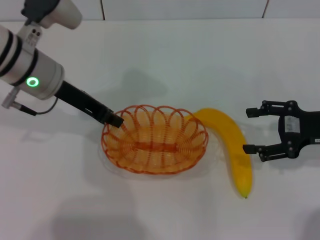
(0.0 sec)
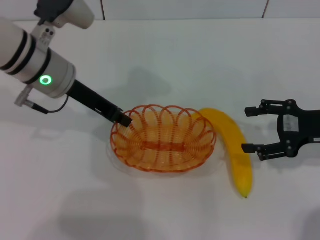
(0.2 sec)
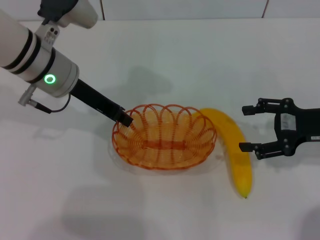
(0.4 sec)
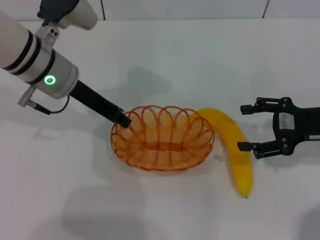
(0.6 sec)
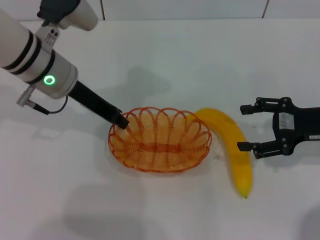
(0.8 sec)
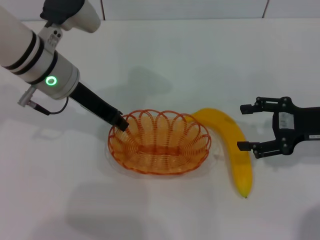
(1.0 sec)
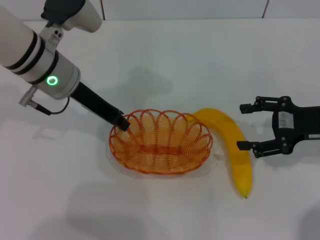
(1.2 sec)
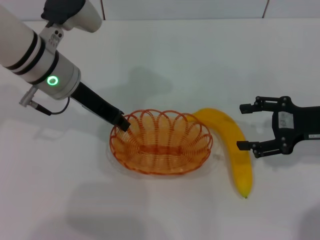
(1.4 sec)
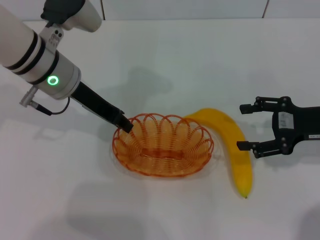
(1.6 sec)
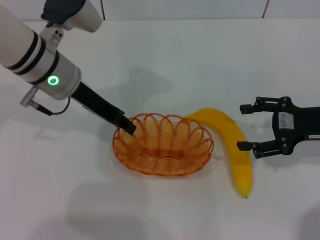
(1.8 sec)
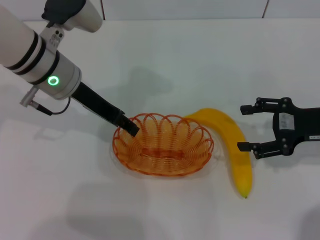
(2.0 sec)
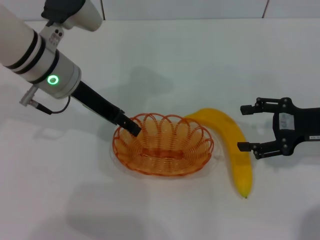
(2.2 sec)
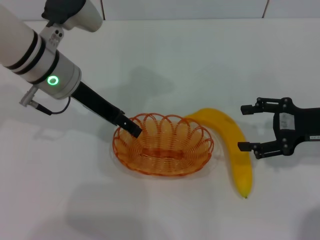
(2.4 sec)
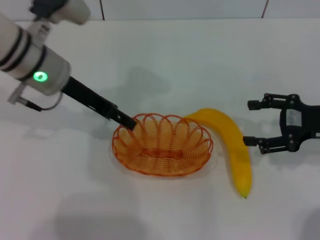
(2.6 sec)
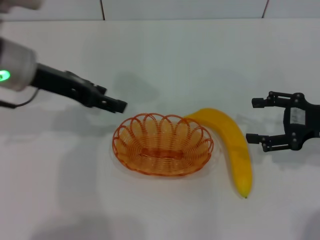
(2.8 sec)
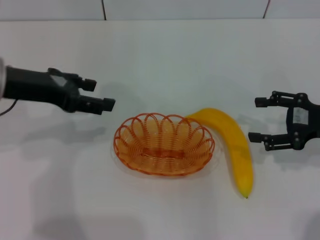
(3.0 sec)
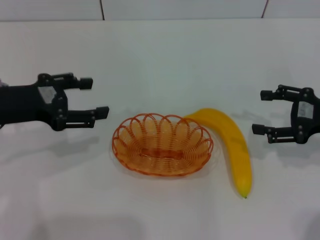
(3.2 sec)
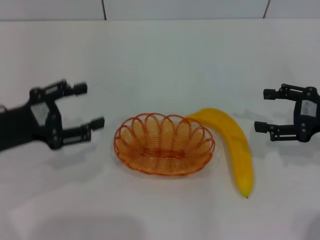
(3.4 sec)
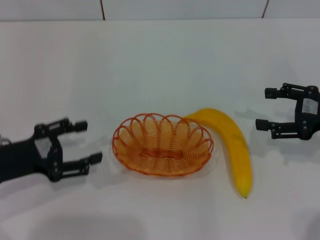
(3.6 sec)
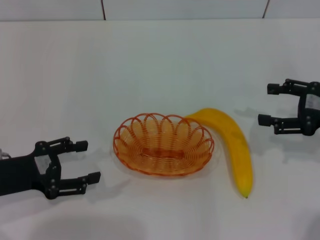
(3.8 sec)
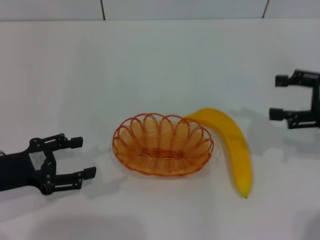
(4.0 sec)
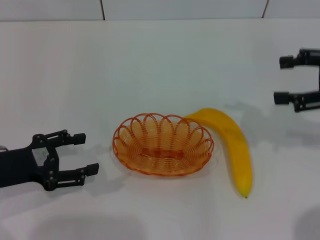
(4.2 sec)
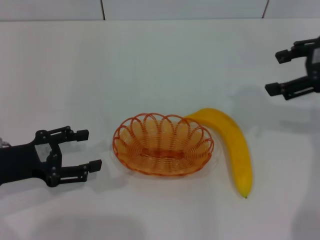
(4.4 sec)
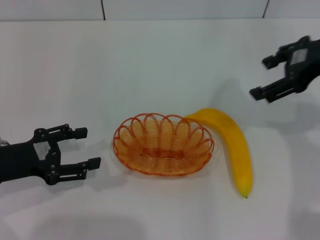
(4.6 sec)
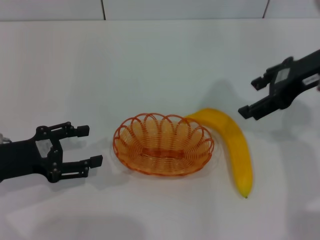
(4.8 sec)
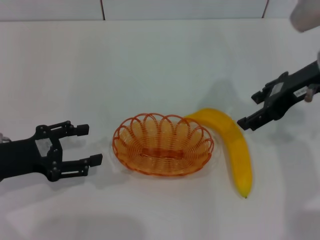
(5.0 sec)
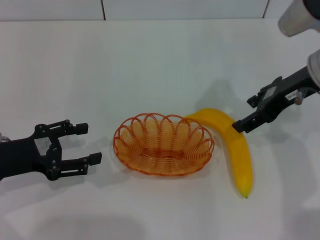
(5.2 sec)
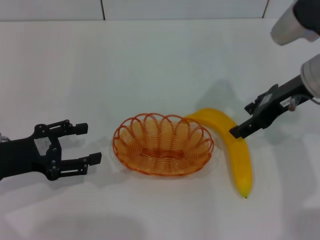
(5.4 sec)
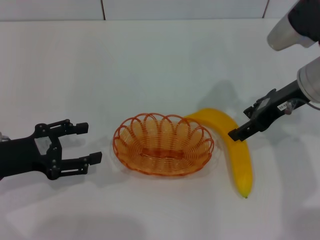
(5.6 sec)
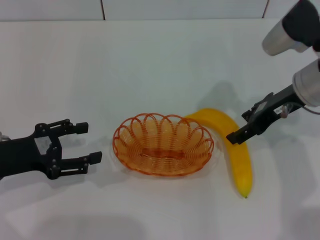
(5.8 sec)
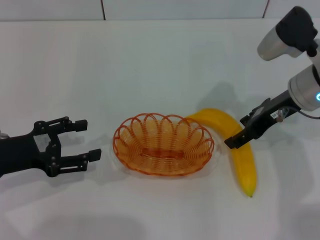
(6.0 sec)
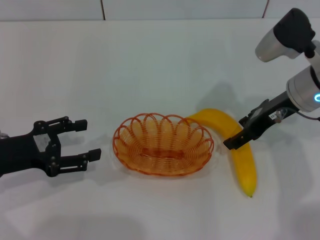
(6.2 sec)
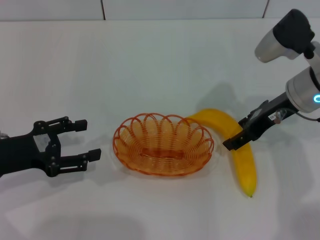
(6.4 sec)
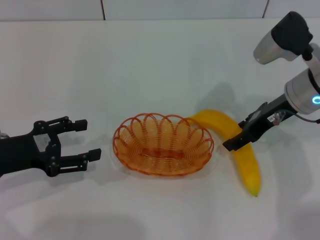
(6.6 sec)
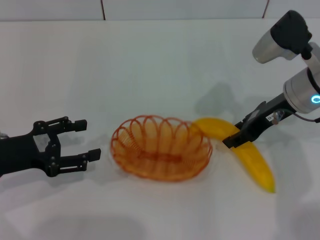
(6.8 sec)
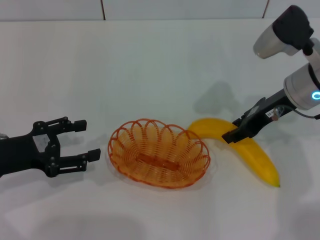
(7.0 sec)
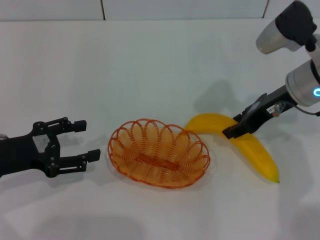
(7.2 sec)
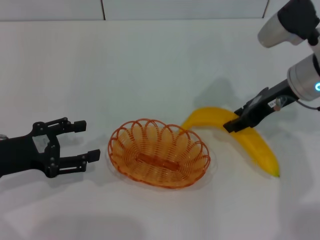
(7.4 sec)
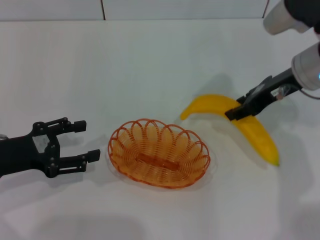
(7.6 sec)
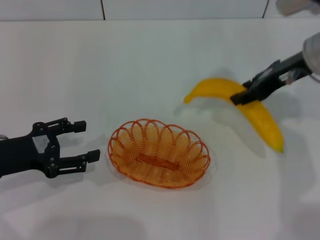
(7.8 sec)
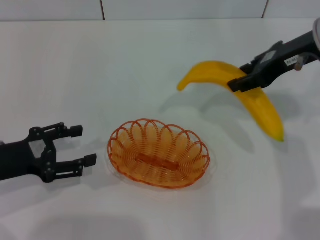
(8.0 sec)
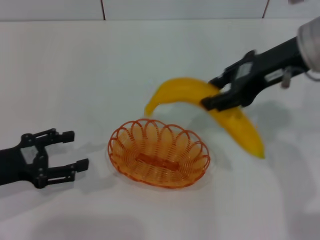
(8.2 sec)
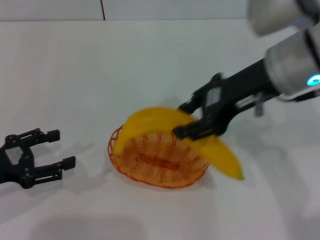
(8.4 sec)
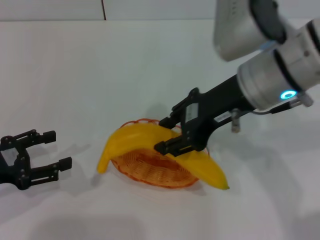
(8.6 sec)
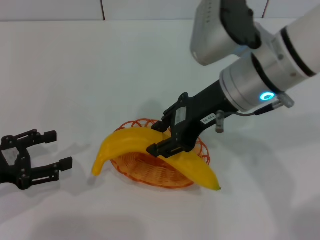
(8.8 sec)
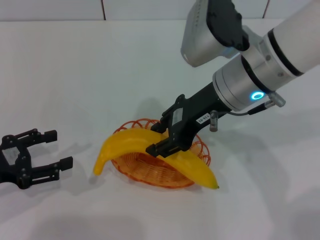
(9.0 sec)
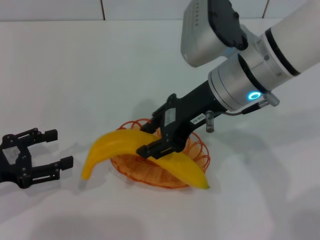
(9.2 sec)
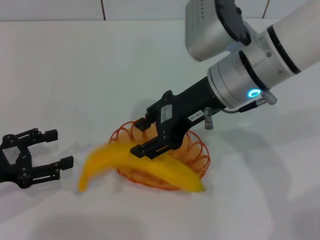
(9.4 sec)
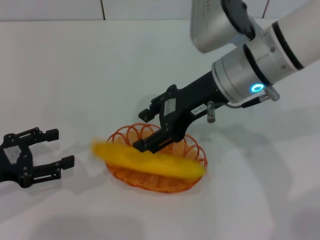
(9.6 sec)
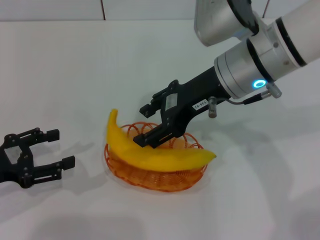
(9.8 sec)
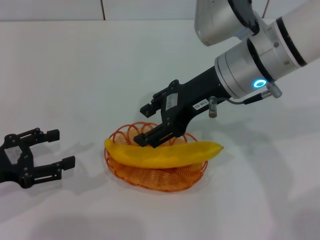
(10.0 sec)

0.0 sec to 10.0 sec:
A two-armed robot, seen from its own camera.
Step, 0.0 sec to 2.6 sec: Place the basket in the center of view with the left gripper.
Step, 2.8 sec to 7.6 sec: Pick up the banana with the right gripper.
Step, 7.8 sec to 9.4 sec: Place the banana into the basket with the right gripper.
0.0 sec to 1.4 sec: The grippers stay close to where they were, moving slightly.
1.4 sec to 2.8 sec: The left gripper is displaced to the left by some 5 cm, and opens.
2.8 sec to 4.2 sec: The left gripper is displaced downward, backward and to the left by some 20 cm. The right gripper goes some 10 cm upward.
4.2 sec to 5.8 sec: The right gripper travels to the left, forward and downward by approximately 15 cm.
5.8 sec to 7.2 sec: The right gripper closes its fingers.
7.2 sec to 8.6 sec: The right gripper heads to the left, upward and backward, covering about 15 cm.
8.6 sec to 10.0 sec: The right gripper opens its fingers.

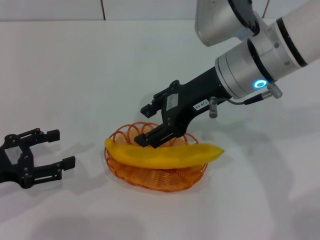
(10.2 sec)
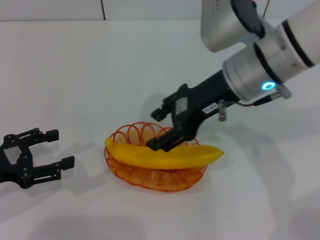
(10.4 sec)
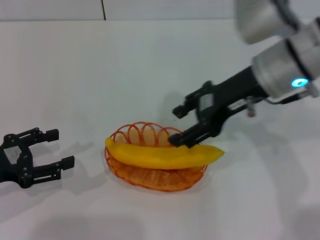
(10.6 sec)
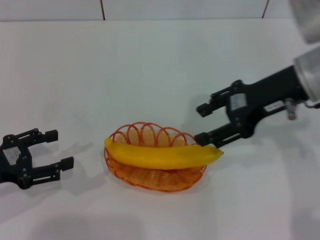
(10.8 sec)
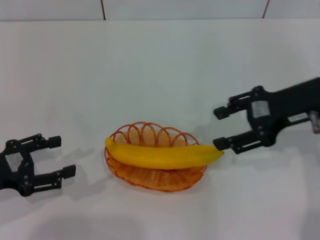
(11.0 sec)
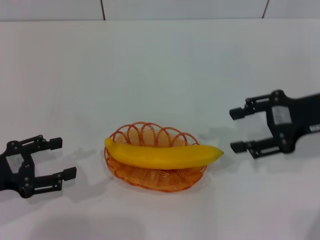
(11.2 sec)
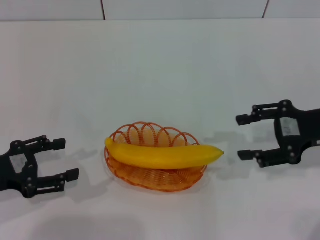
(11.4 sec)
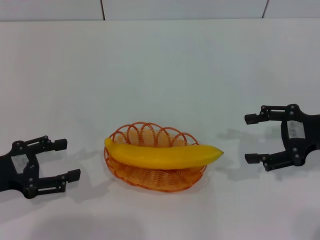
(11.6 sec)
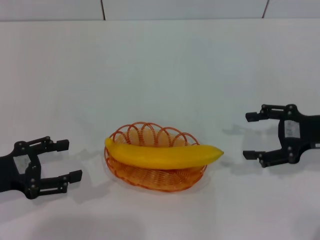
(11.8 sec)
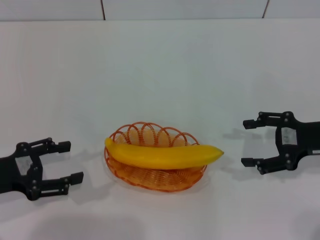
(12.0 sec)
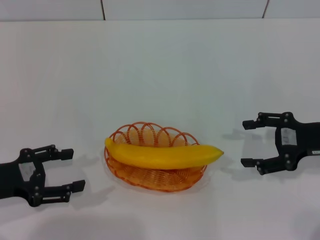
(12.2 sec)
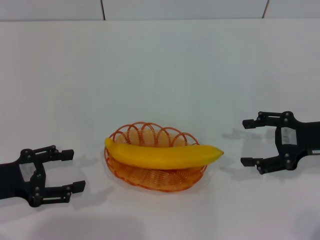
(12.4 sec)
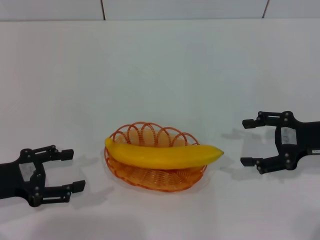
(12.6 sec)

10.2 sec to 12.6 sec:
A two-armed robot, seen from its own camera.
10.2 sec to 11.4 sec: The right gripper heads to the right, covering some 20 cm.
11.4 sec to 12.6 sec: The grippers stay close to where they were, moving slightly.
